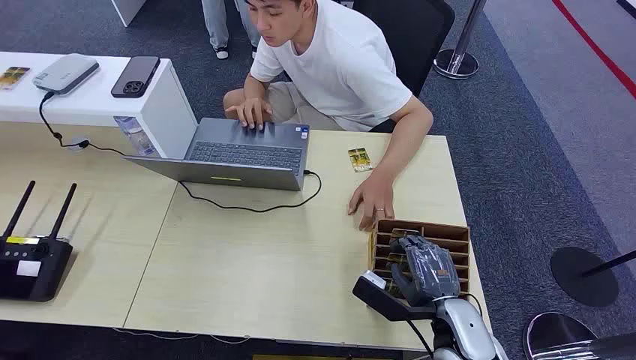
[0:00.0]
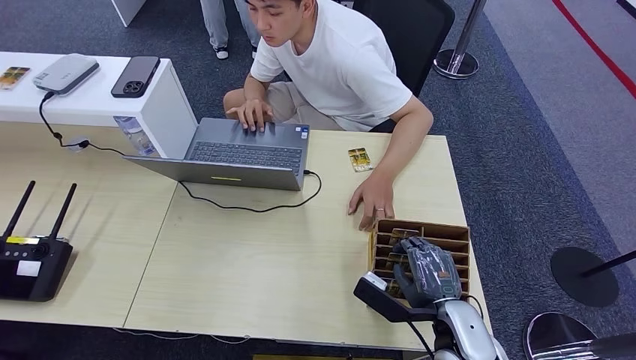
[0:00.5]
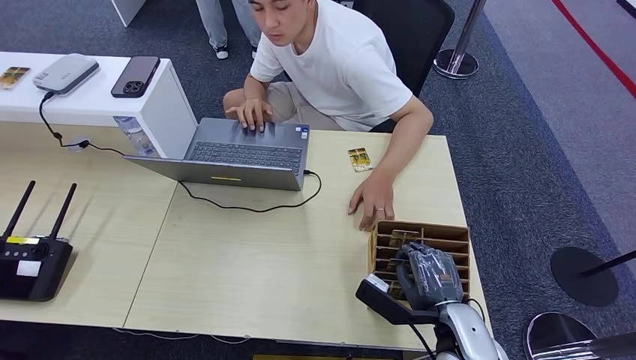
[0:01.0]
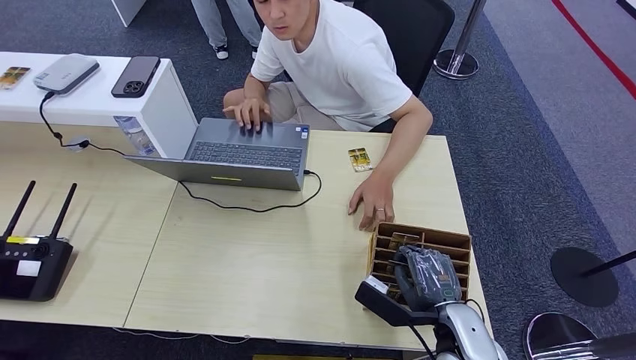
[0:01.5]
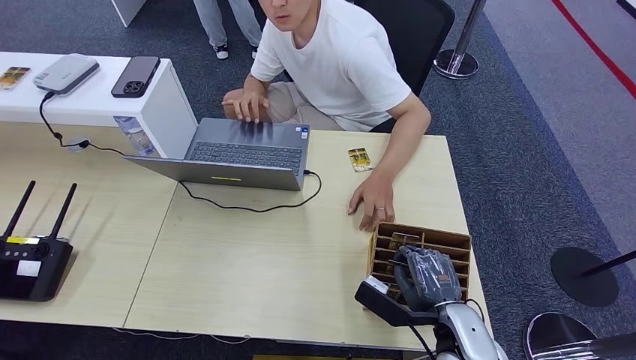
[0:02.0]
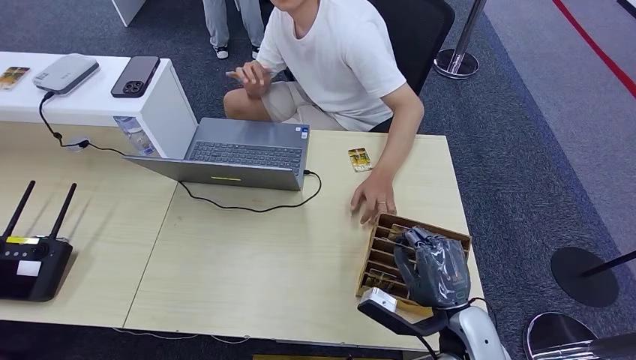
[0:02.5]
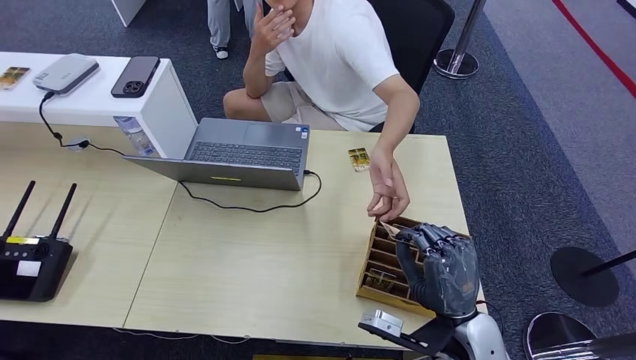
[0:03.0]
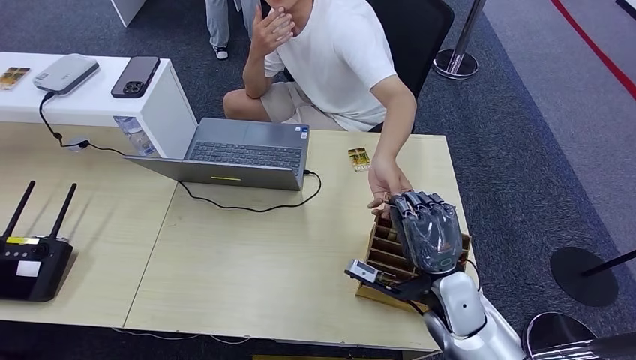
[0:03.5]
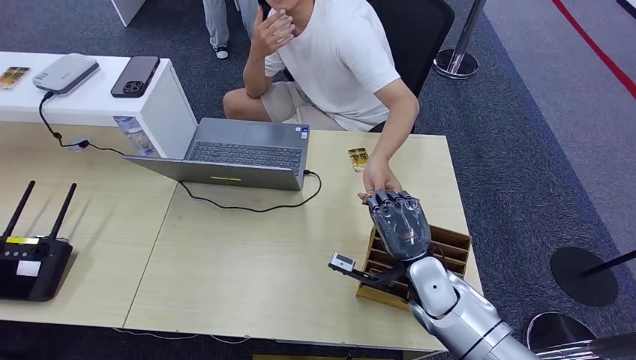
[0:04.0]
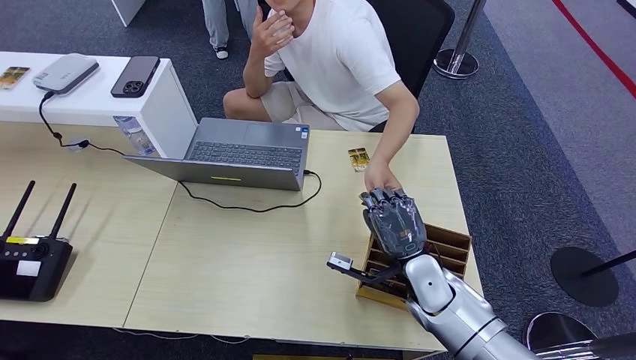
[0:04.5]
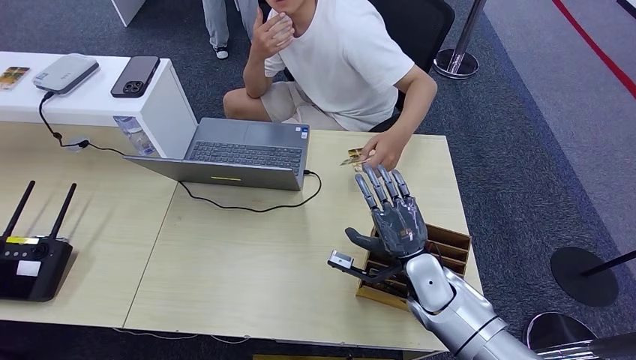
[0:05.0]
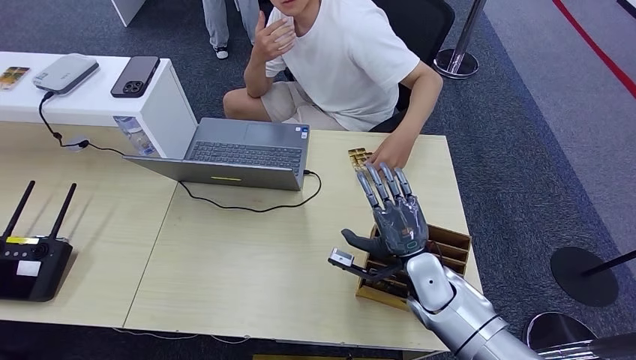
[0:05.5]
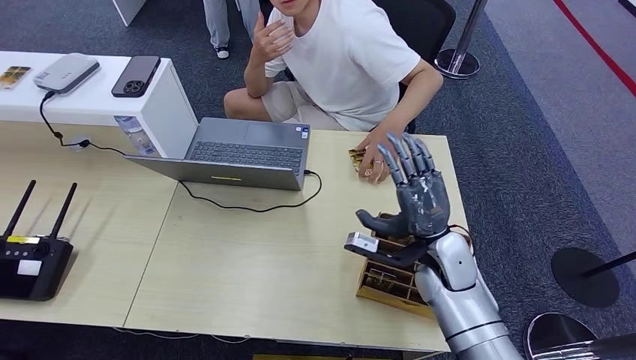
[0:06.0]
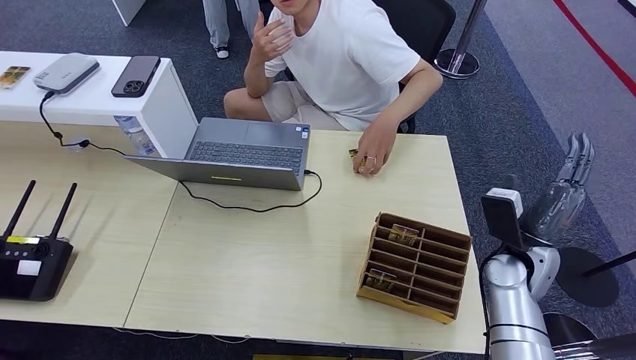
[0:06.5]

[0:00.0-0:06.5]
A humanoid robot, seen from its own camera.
Step, 0:00.0 to 0:03.0: Pick up the key card from the card box.
Step, 0:03.5 to 0:06.5: Hand the key card to the target.
0:02.0 to 0:04.5: The right hand is displaced forward by approximately 10 cm.
0:04.5 to 0:06.5: The right hand moves to the right, about 15 cm.
